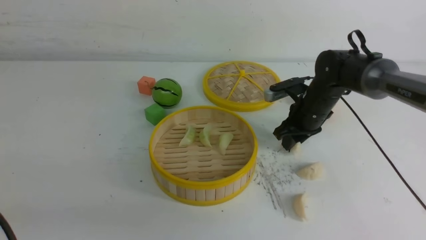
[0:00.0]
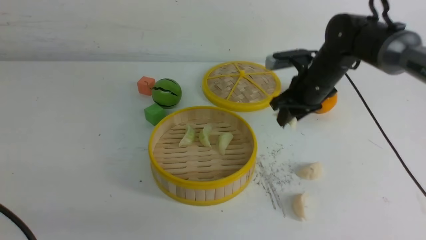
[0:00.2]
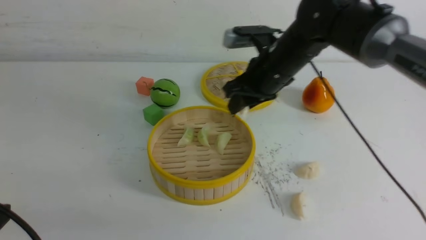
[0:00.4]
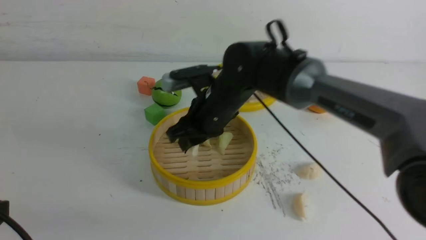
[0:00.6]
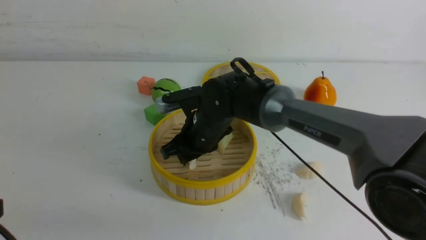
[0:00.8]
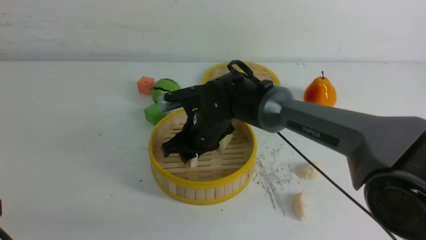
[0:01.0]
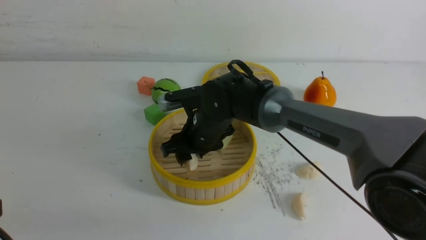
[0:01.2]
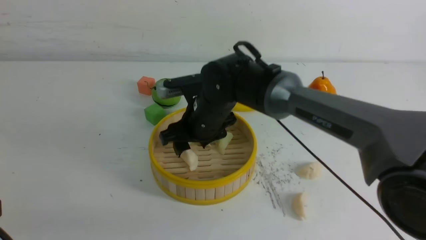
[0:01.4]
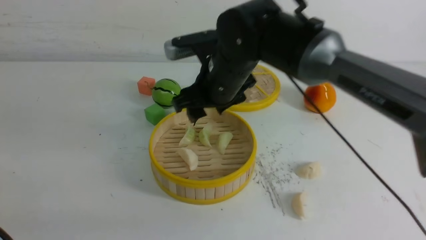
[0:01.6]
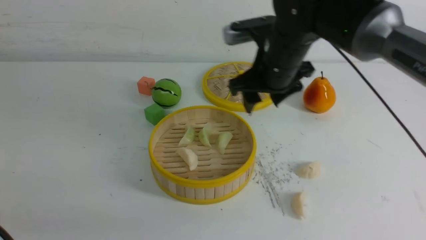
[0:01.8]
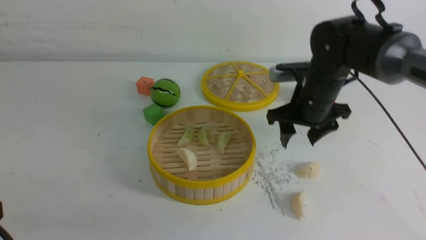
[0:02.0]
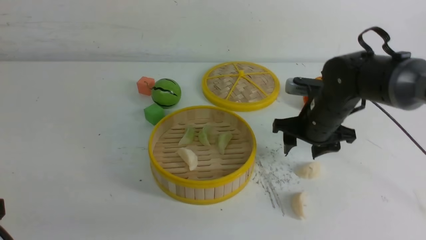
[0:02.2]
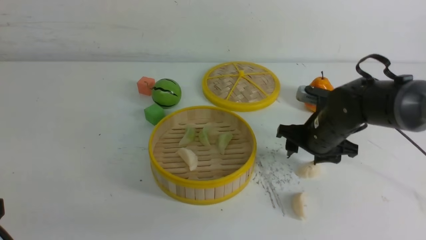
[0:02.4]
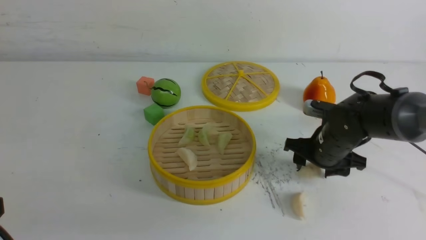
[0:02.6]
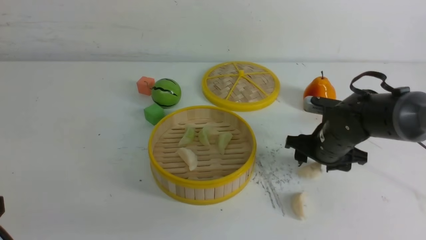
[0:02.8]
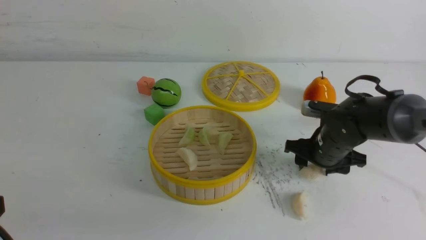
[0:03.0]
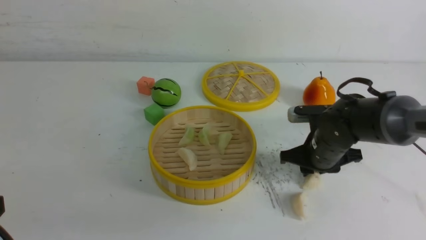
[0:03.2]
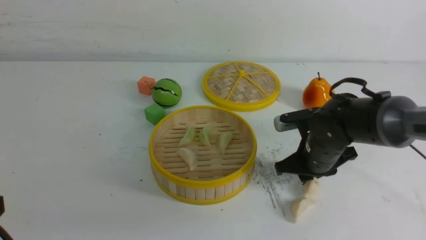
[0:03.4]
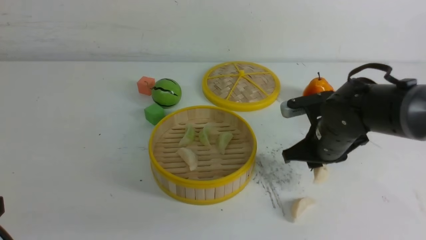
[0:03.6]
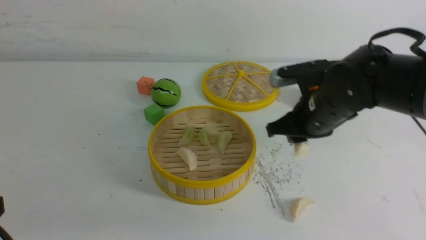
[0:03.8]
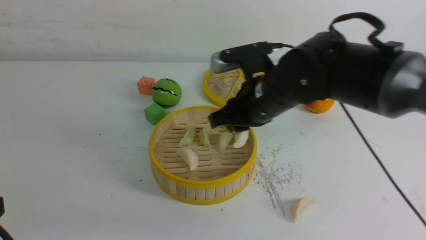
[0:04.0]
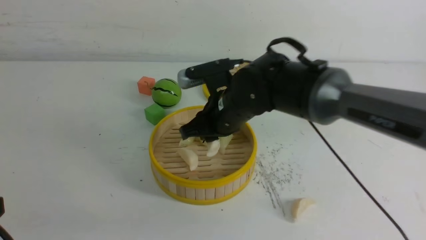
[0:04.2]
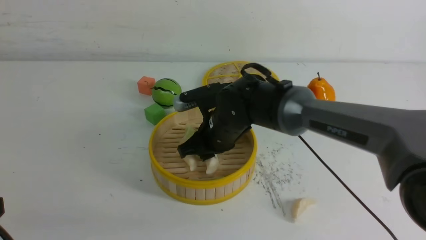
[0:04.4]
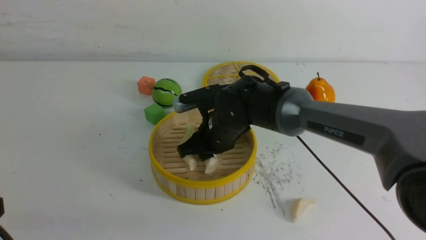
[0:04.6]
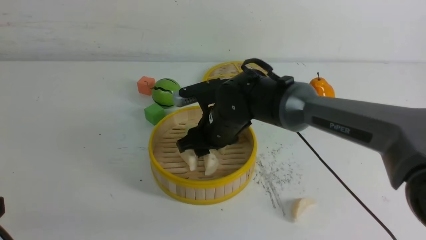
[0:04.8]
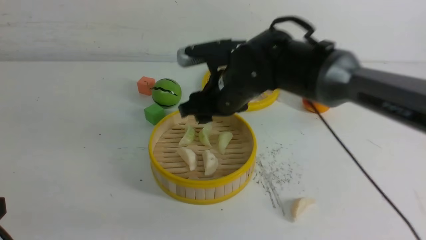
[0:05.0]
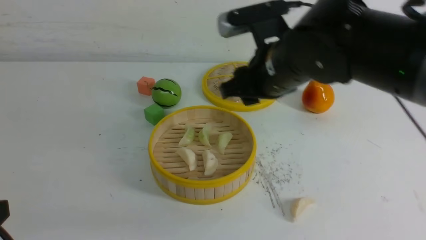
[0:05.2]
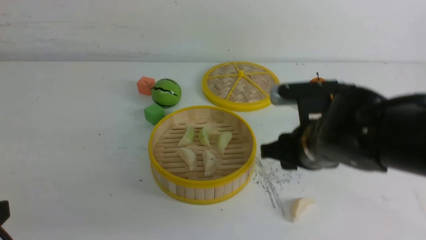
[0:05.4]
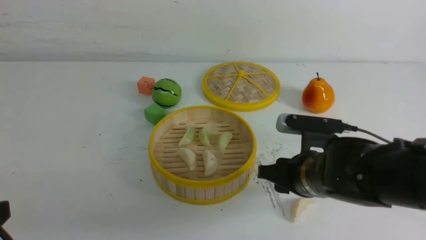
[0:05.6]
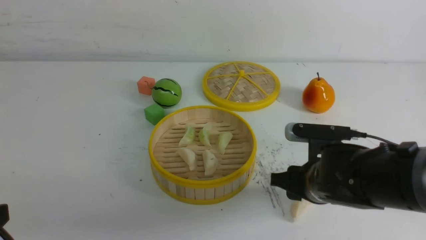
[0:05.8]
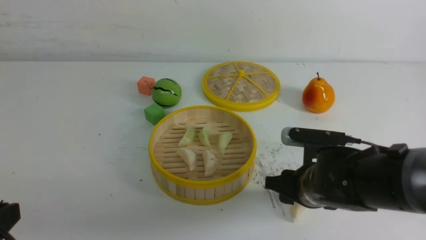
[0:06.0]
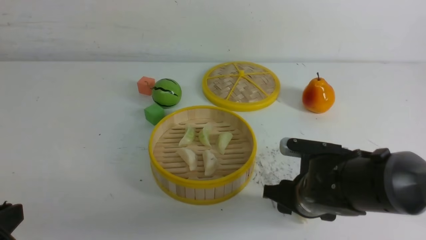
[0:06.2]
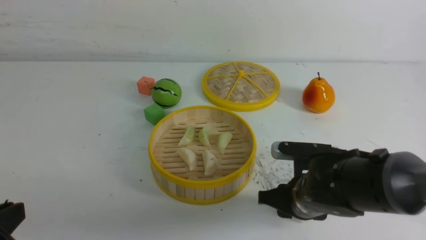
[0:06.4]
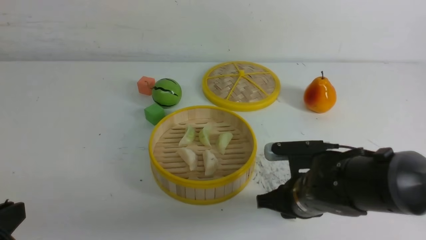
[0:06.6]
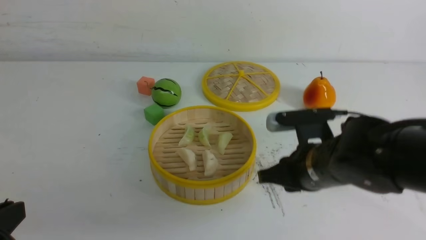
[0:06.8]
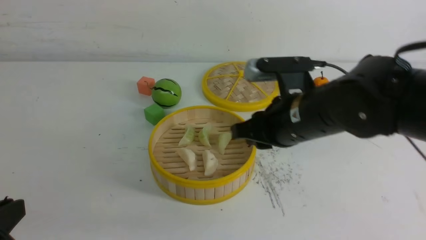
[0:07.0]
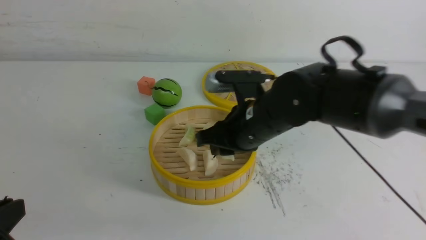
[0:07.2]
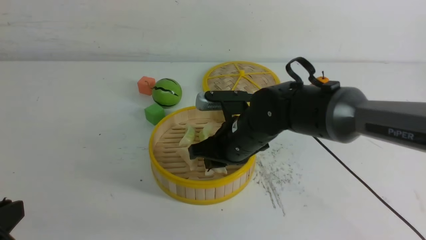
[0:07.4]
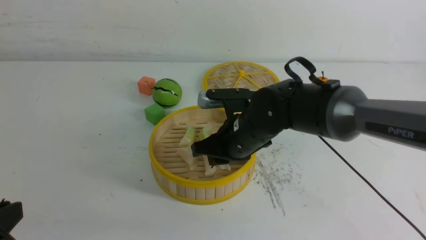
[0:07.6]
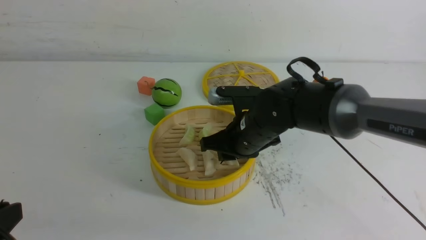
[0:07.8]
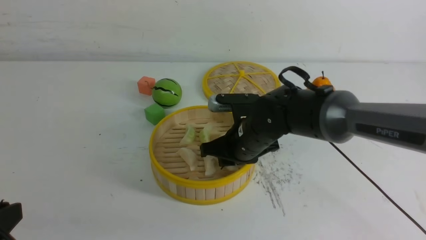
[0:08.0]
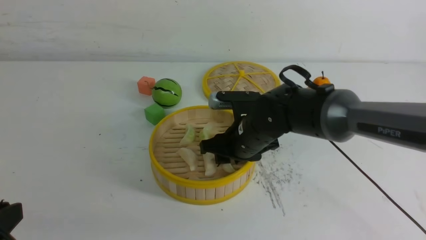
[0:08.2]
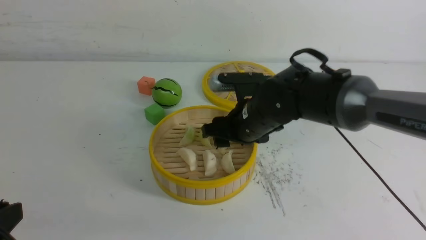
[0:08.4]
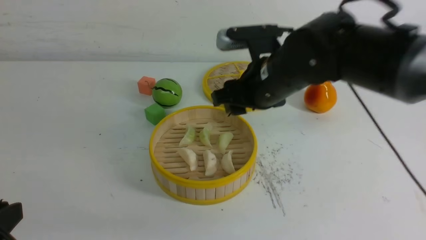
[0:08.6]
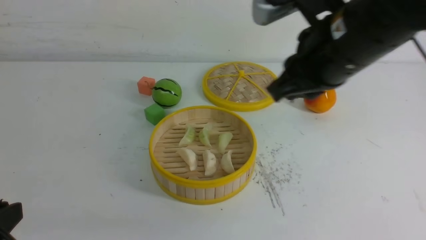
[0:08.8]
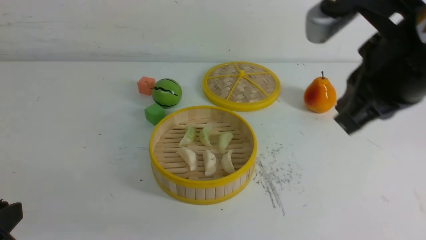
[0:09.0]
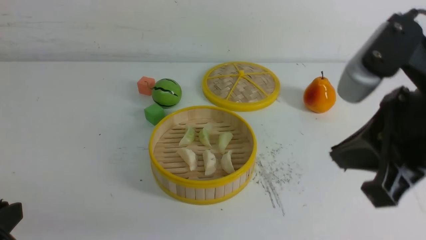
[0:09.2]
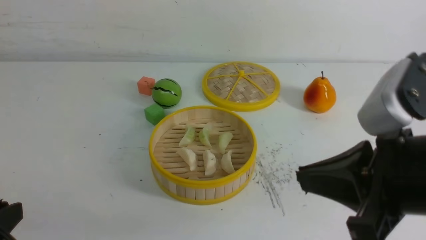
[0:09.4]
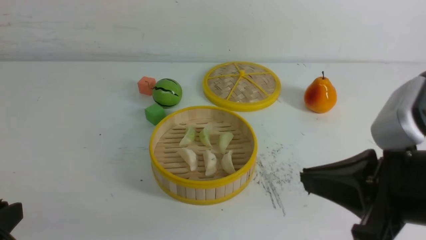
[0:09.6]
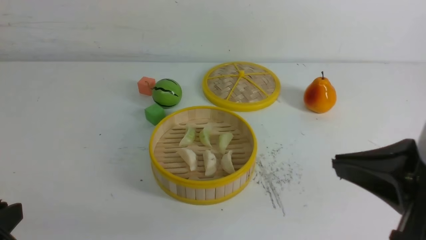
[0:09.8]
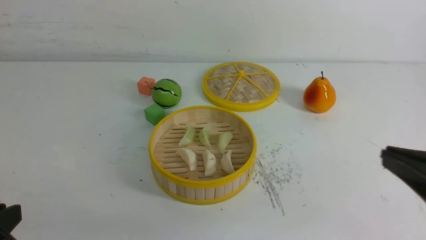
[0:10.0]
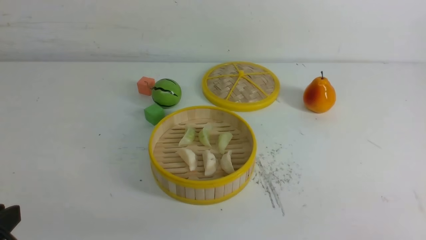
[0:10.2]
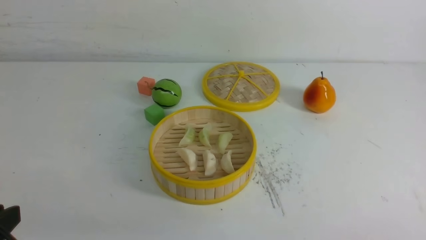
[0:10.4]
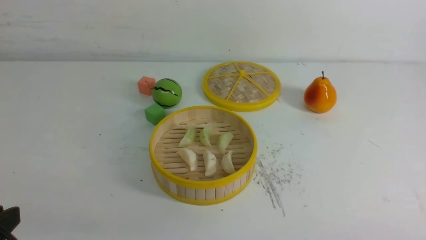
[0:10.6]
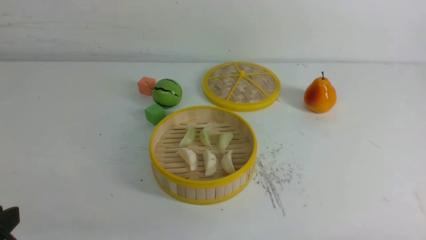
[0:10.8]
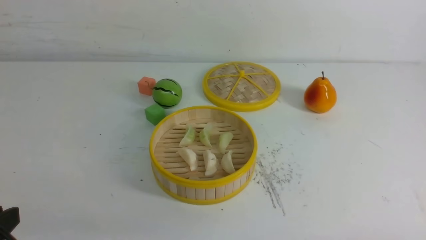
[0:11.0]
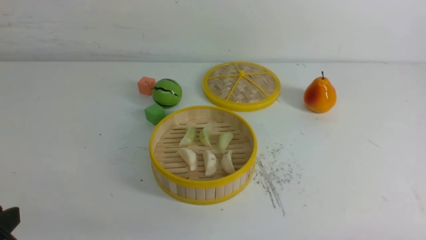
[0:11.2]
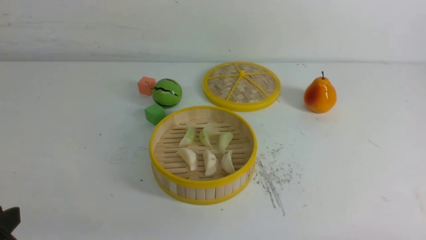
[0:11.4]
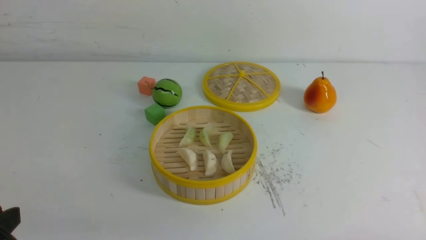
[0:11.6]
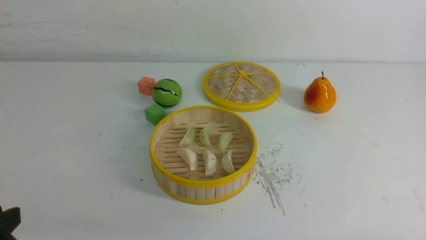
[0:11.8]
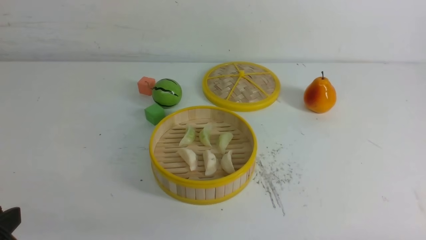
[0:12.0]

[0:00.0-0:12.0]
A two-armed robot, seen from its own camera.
Task of the whole recording: put the dumplings into the steamer on the white table.
Step, 0:00.2 to 0:01.4: use the right arm to put the dumpling into the steamer.
Step, 0:01.6 to 0:03.4: use the right arm to grab a dumpling.
Step, 0:03.6 to 0:04.8: use the right arm to put the dumpling into the steamer.
Step, 0:05.0 to 0:06.6: use the right arm to grab a dumpling.
Step, 0:06.8 to 0:08.6: use the right arm to put the dumpling into the steamer.
0:00.0 to 0:01.6: The right gripper travels to the left, upward and backward by approximately 20 cm, and opens up.
0:01.6 to 0:03.0: The right gripper travels to the right and downward by some 20 cm.
0:03.0 to 0:04.4: The right gripper goes about 20 cm to the left, and closes its fingers.
0:04.4 to 0:06.0: The right gripper moves to the right and backward, roughly 15 cm, and opens.
0:06.0 to 0:07.6: The right gripper is displaced to the left and forward by approximately 10 cm, and closes up.
0:07.6 to 0:09.0: The right gripper goes roughly 25 cm upward, backward and to the right, and closes.
0:09.0 to 0:10.4: The right gripper heads downward, backward and to the right, covering approximately 25 cm.

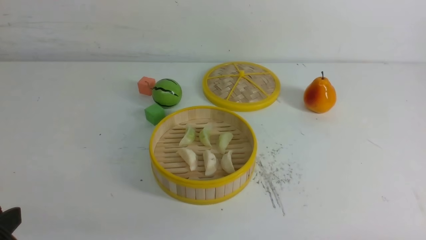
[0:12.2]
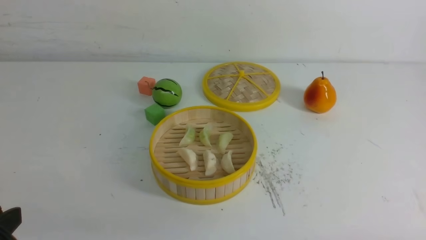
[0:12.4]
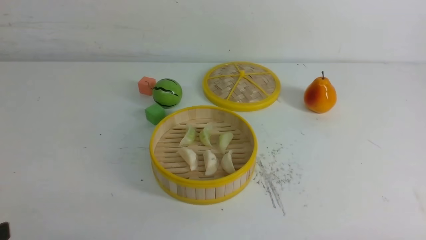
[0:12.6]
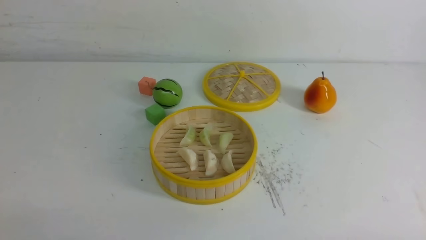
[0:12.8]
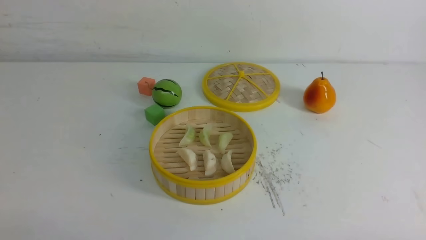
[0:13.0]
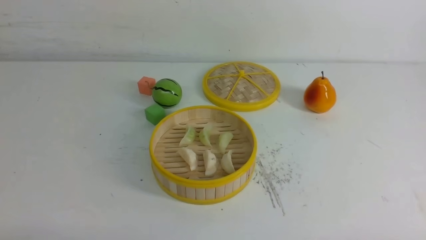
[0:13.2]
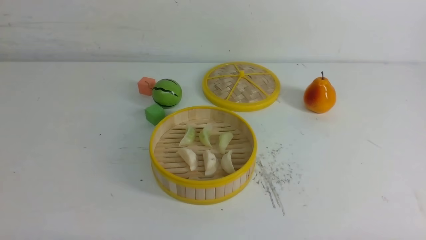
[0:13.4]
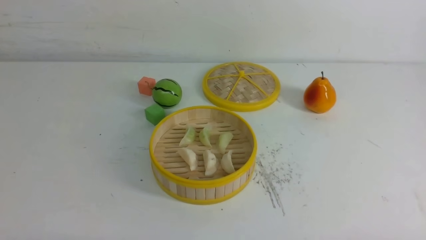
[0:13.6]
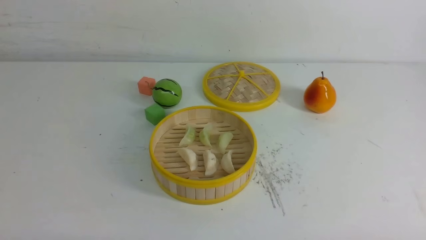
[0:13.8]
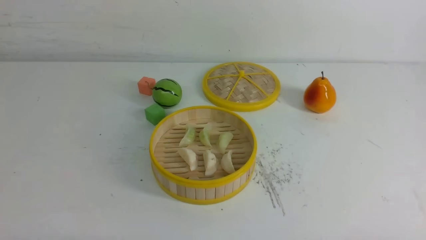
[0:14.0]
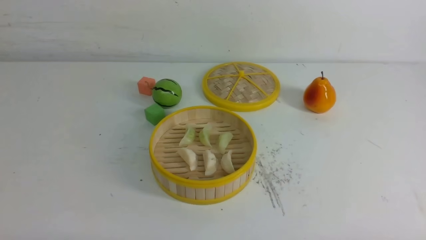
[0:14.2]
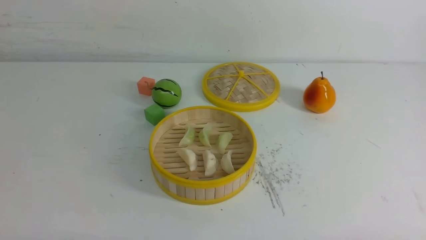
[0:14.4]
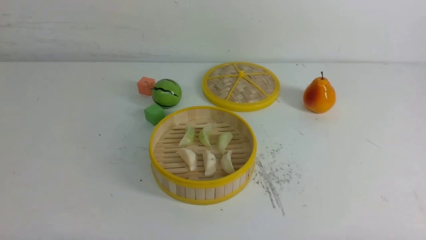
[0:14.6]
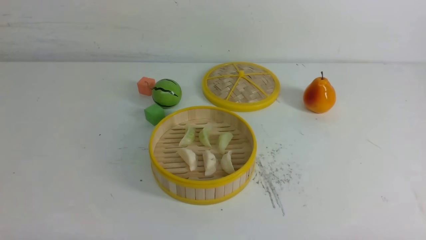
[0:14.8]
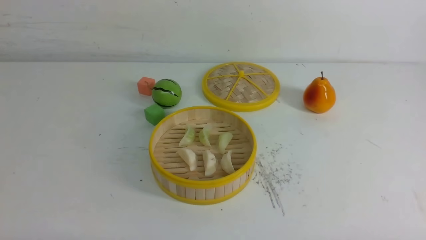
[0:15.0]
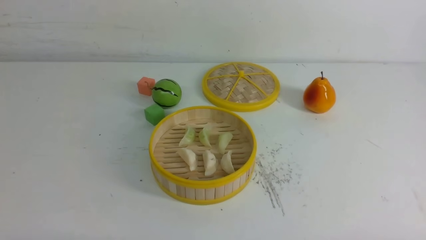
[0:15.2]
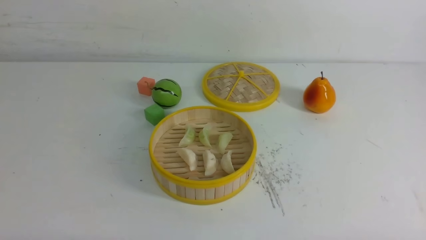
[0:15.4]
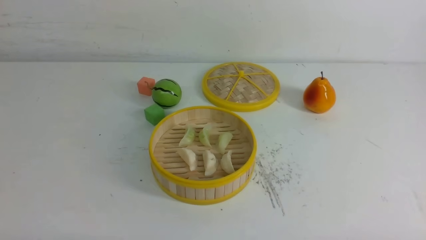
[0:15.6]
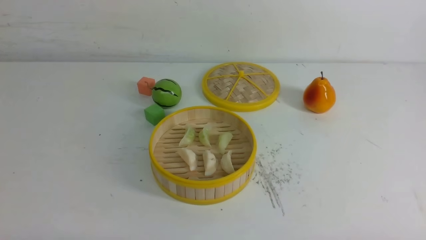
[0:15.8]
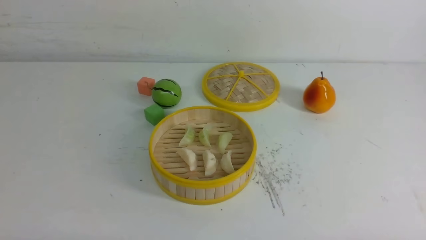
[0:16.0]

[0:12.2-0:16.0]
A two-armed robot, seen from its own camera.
Task of the whole recording: put the dumplings into the steamer on the white table.
0:13.4 to 0:16.0: The two grippers keep their place.

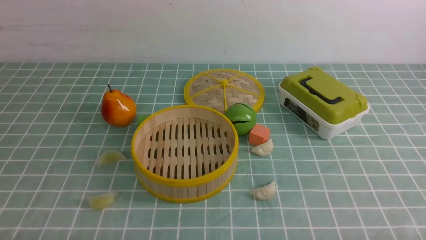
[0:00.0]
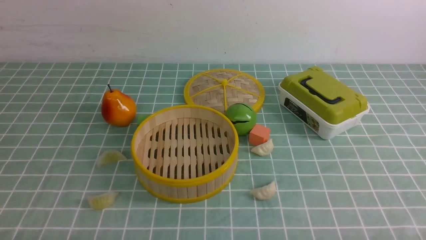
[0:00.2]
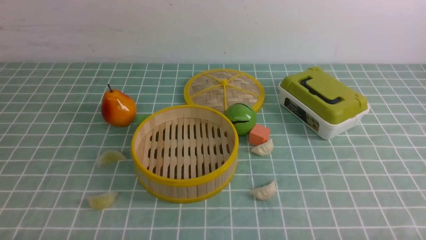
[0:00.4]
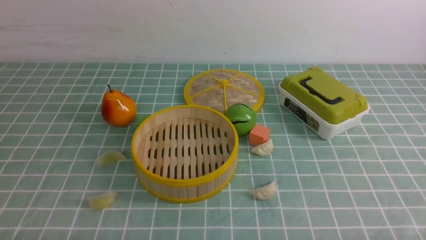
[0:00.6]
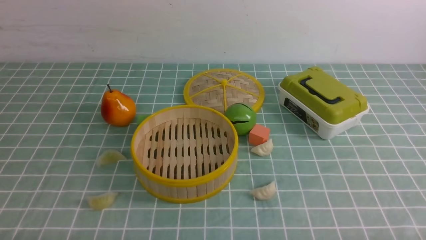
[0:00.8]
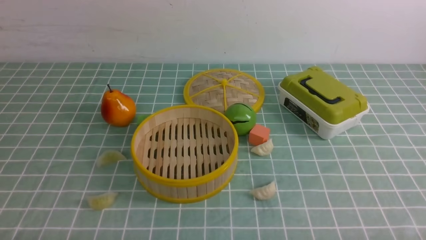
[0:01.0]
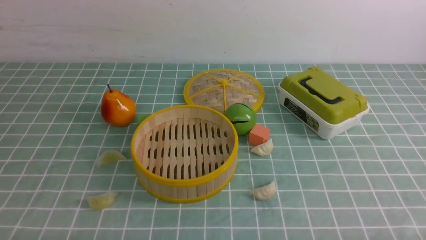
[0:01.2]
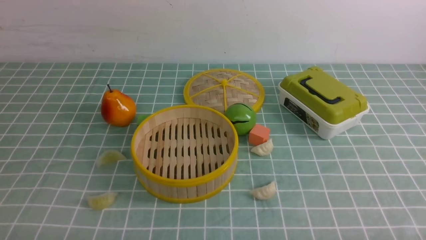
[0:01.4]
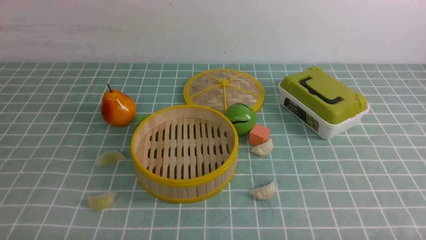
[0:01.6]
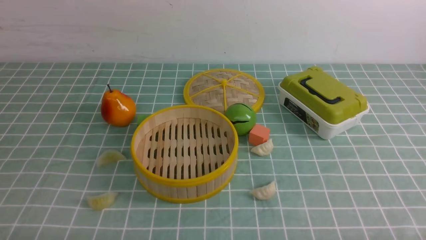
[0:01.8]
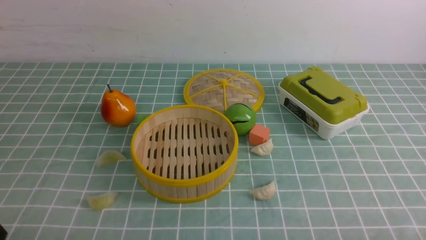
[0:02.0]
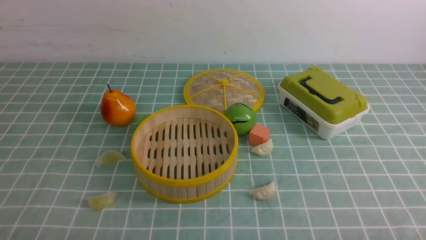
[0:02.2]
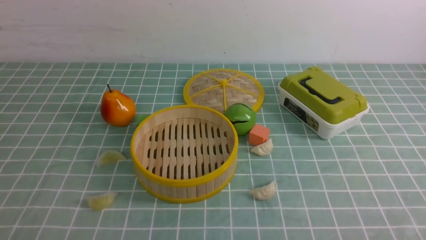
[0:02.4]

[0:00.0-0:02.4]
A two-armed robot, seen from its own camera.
Task of the whole recording: put the dumplings into the steamer on the table with the blue tablecloth.
0:00.0 to 0:01.2: Both grippers stay about where they are.
